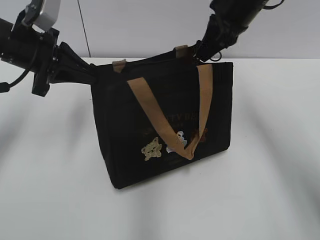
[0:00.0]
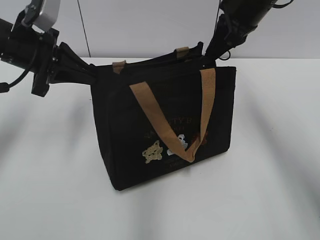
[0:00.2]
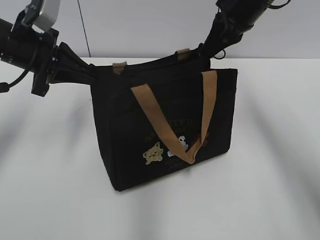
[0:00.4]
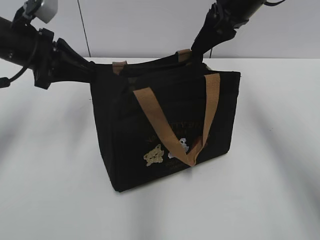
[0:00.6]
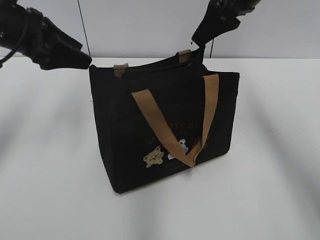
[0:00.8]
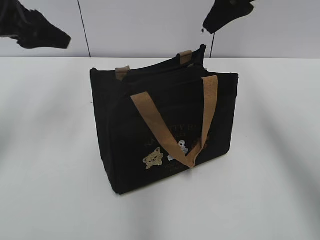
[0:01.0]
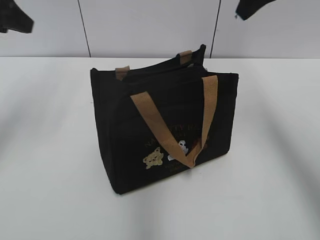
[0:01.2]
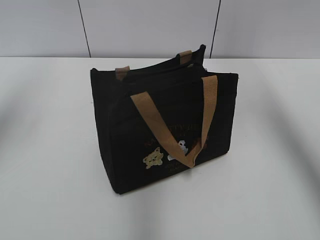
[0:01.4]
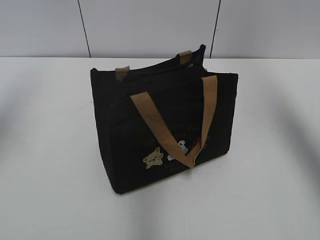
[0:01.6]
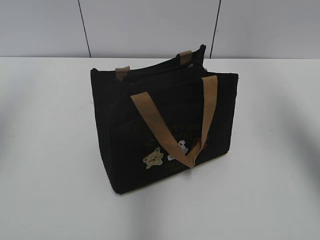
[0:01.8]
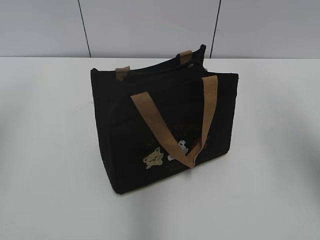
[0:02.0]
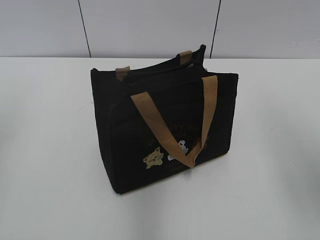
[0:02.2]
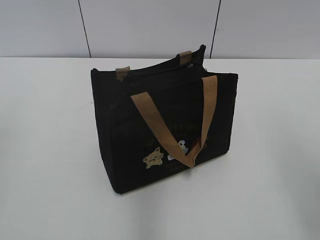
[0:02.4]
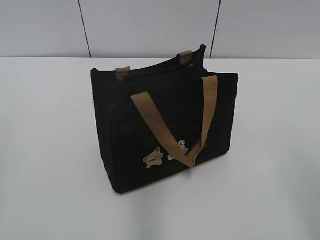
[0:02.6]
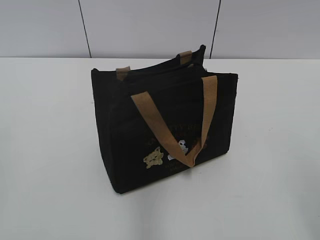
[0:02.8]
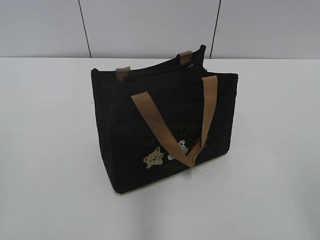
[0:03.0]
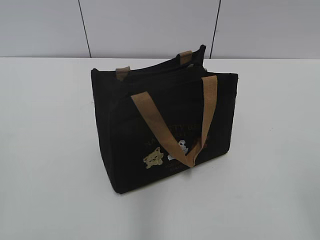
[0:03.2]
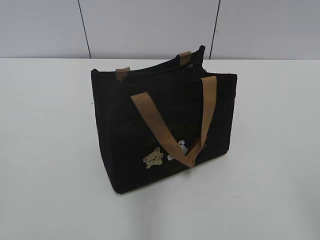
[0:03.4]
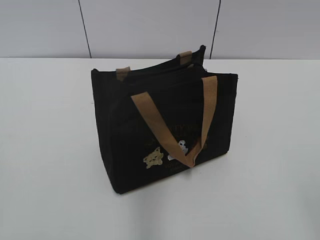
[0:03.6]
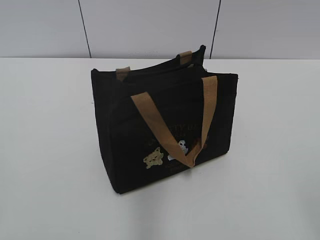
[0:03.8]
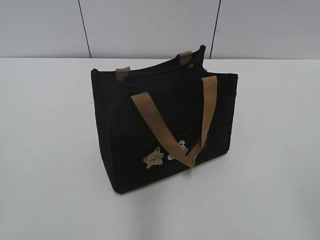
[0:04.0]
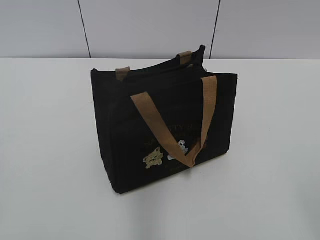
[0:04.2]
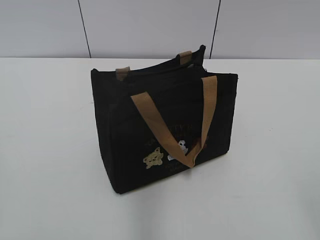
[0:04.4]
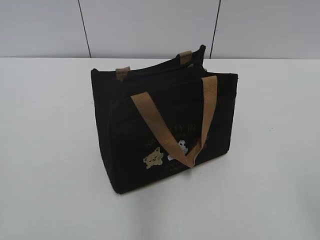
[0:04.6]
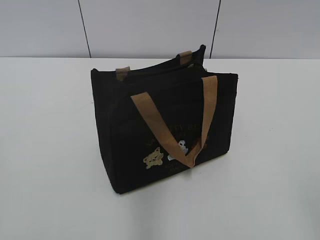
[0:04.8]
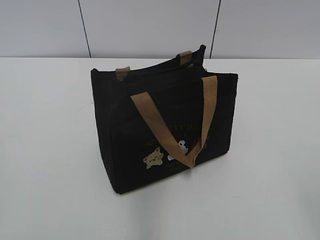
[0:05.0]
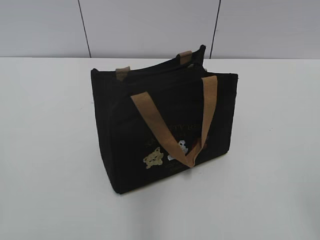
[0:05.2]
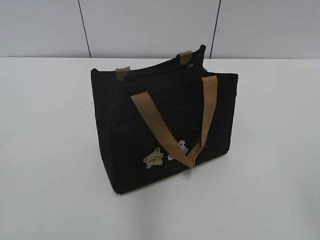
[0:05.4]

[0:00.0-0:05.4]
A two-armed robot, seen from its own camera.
0:00.0 to 0:01.4: The left gripper travels upward and to the left by some 15 cm, and opens. The right gripper is displaced upward and to the right by about 15 cm, and opens its fingers.
0:01.4 to 0:02.8: The left gripper is displaced backward by roughly 25 cm, while the right gripper moves backward and downward, roughly 35 cm.
0:04.0 to 0:05.4: Neither gripper changes place.

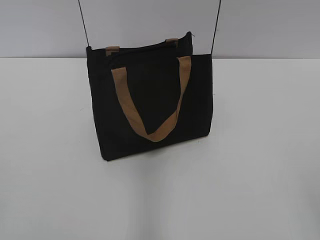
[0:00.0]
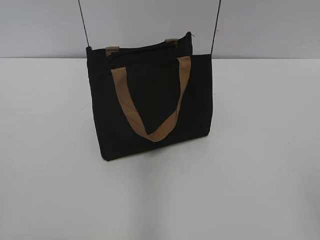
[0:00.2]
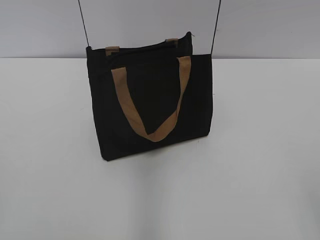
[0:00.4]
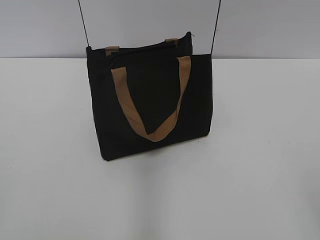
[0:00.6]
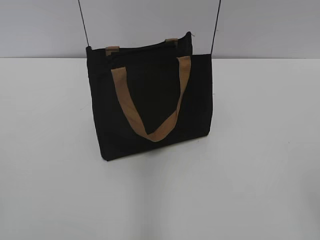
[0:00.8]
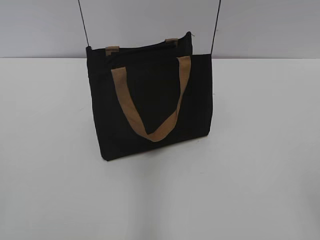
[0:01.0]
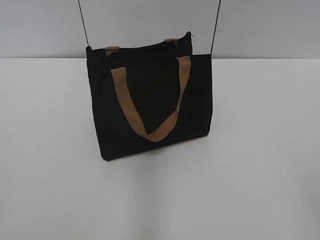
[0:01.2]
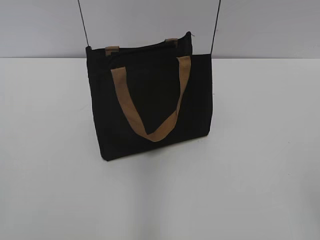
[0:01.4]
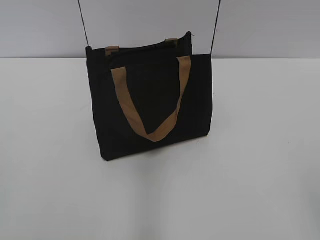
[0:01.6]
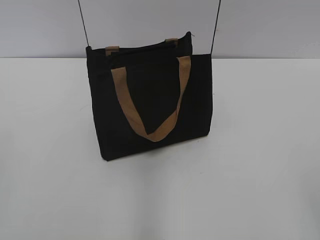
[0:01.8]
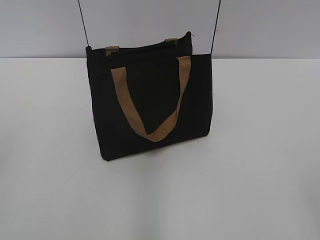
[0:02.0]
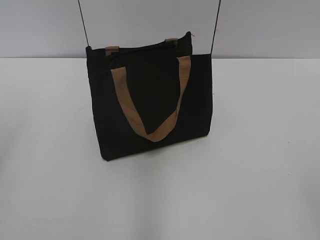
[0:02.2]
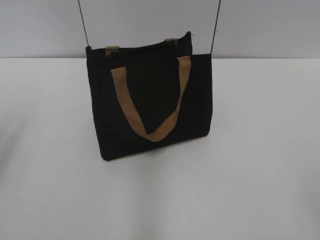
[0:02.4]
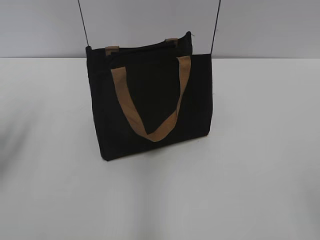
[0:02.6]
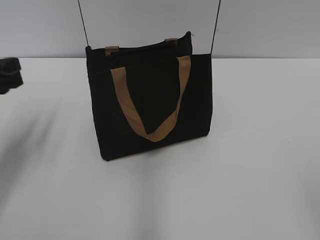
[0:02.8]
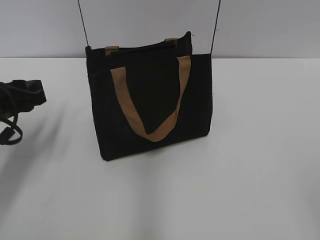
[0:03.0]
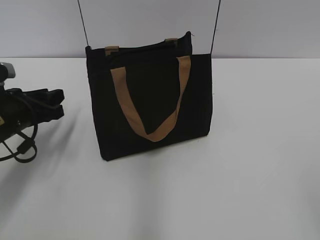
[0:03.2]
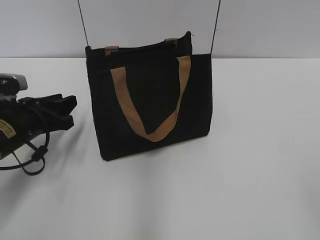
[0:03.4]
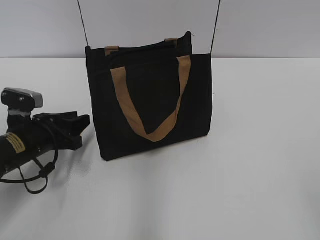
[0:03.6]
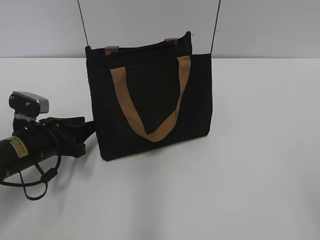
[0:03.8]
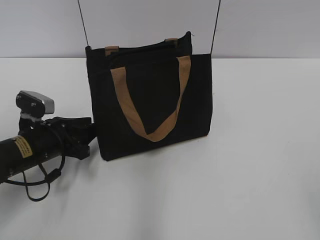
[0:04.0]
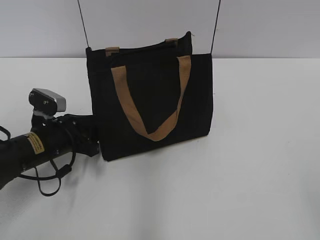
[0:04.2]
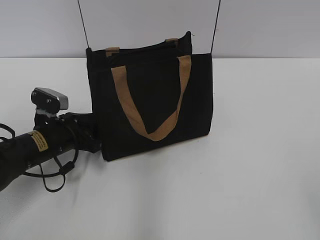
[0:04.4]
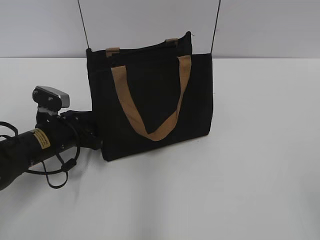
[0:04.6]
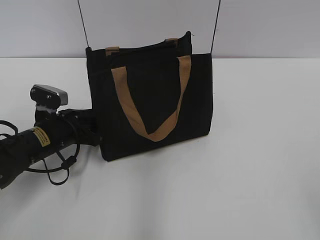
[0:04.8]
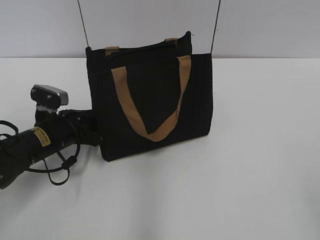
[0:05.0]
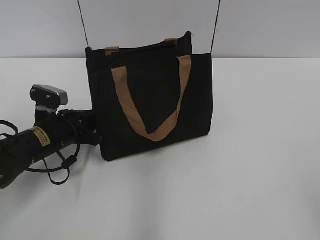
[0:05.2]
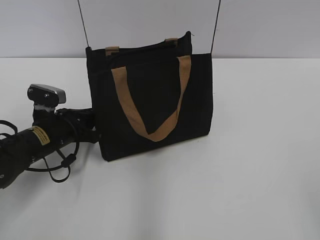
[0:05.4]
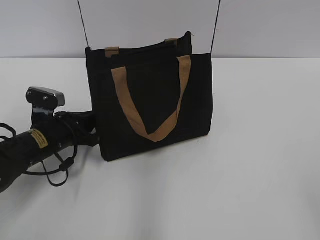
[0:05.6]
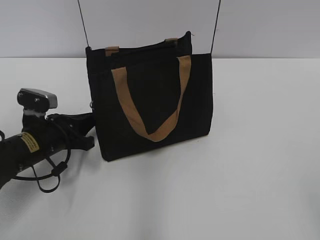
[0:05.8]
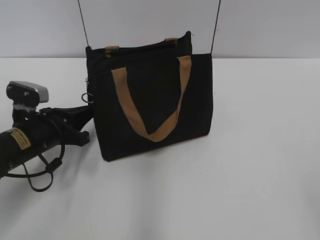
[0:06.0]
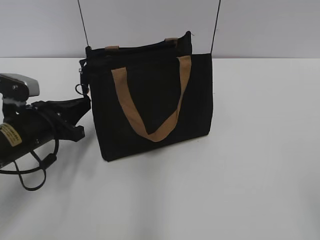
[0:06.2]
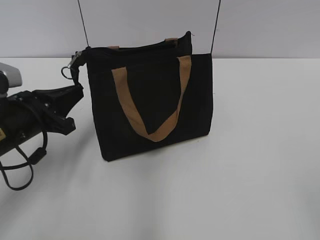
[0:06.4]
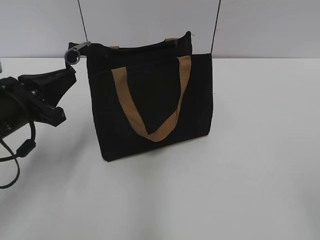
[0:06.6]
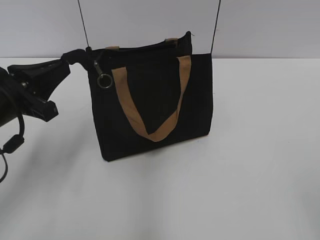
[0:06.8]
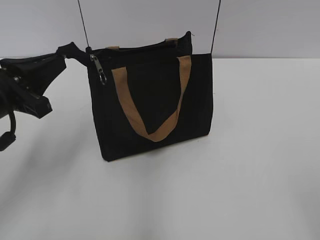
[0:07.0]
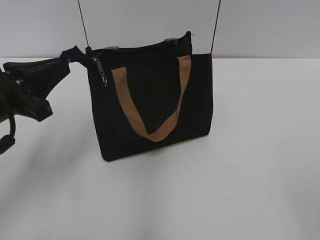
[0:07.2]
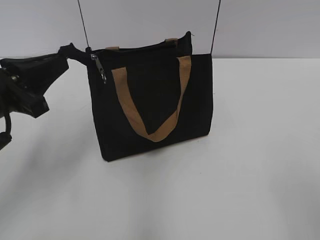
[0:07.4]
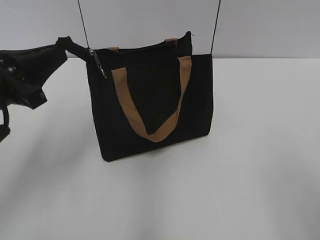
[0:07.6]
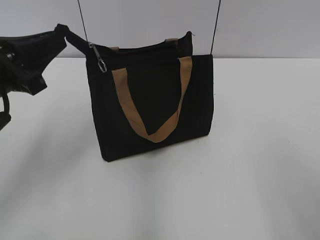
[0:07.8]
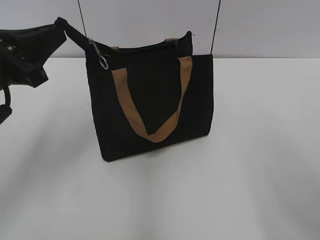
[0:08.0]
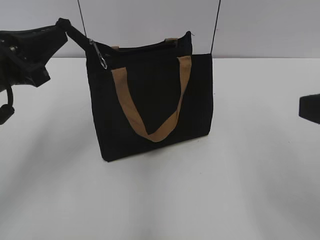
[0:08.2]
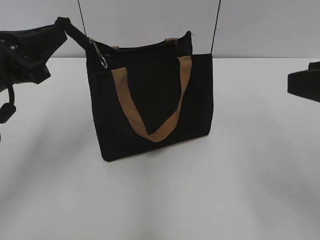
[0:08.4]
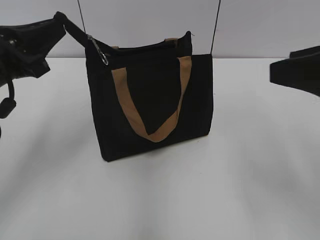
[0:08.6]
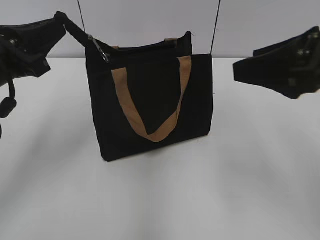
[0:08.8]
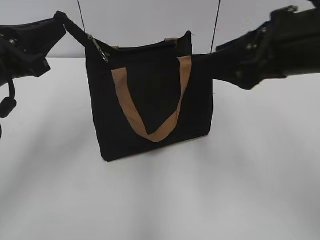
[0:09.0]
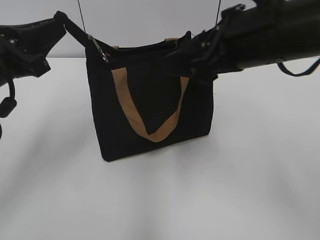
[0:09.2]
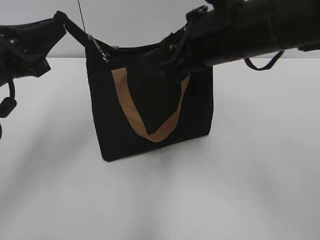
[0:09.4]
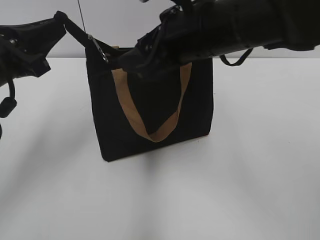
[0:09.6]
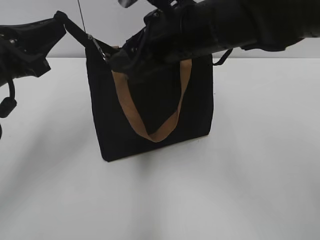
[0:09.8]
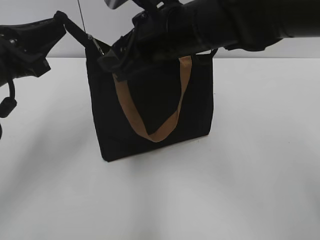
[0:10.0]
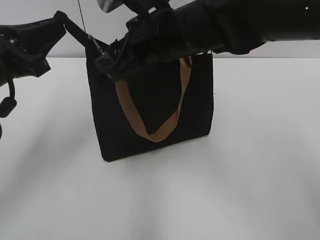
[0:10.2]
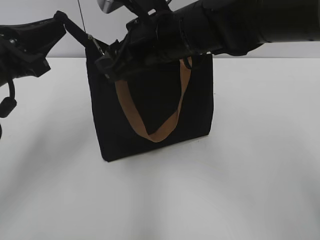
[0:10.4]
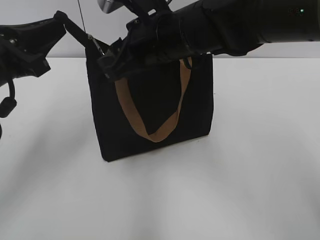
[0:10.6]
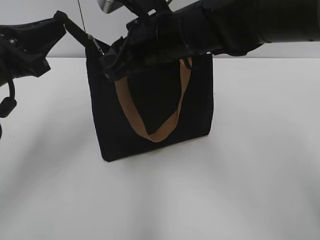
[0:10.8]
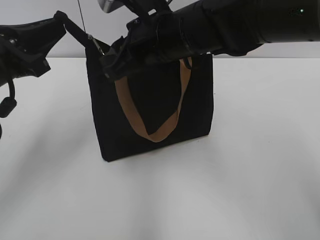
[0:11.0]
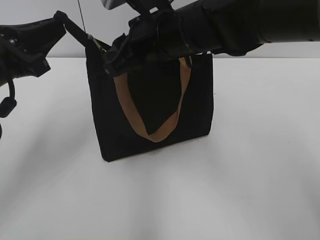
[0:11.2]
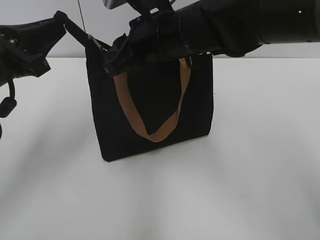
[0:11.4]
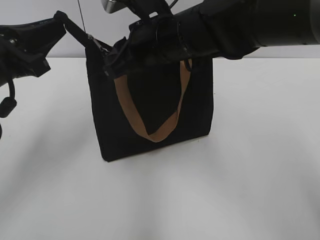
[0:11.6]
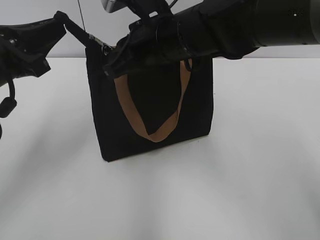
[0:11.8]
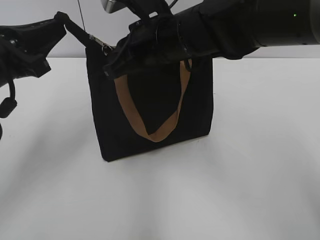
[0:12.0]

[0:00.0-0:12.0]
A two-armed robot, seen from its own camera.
0:01.6 to 0:03.0: The left gripper is displaced forward and downward by approximately 30 cm.
0:03.0 to 0:04.4: The left gripper is displaced downward and to the right by approximately 10 cm.
0:04.4 to 0:06.0: The left gripper closes its fingers.
0:06.0 to 0:07.6: The left gripper is displaced upward and backward by about 15 cm.
0:07.6 to 0:09.0: The right gripper moves forward and to the left, approximately 20 cm.
0:09.0 to 0:10.4: The right gripper travels to the left and forward by some 20 cm.
0:10.4 to 0:12.0: The right gripper closes its fingers.

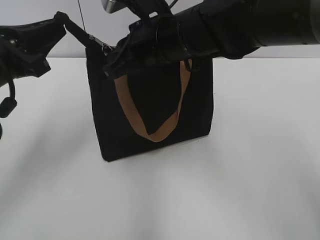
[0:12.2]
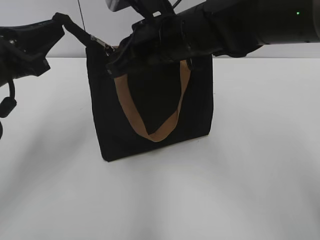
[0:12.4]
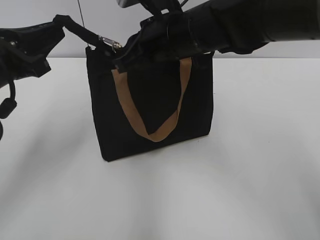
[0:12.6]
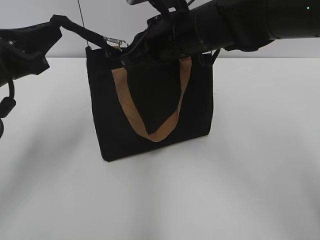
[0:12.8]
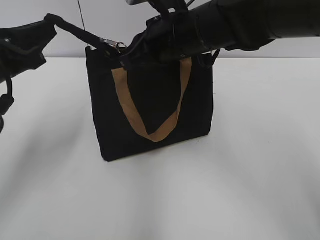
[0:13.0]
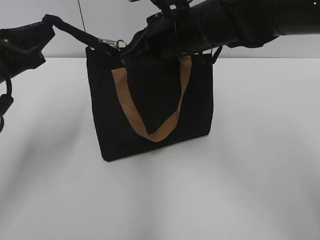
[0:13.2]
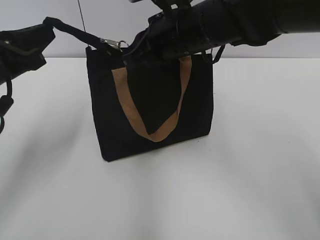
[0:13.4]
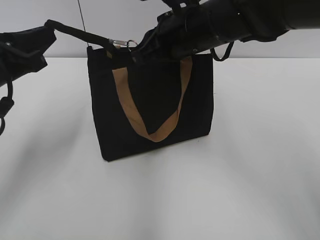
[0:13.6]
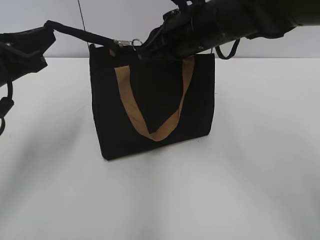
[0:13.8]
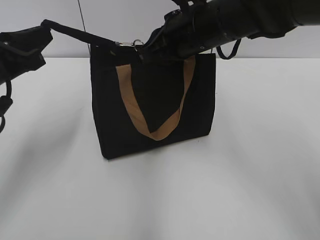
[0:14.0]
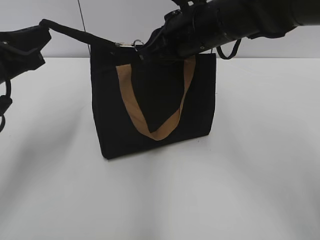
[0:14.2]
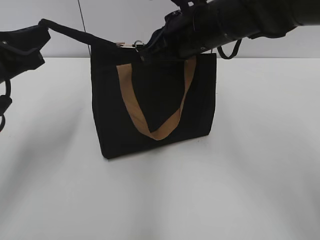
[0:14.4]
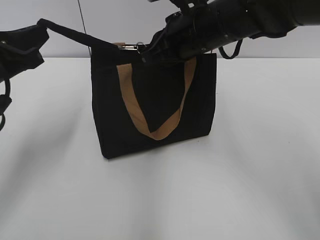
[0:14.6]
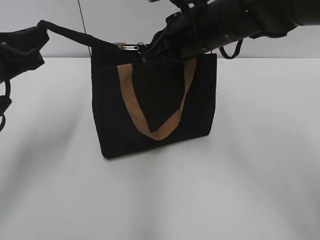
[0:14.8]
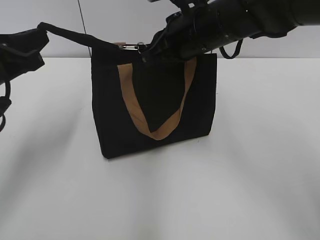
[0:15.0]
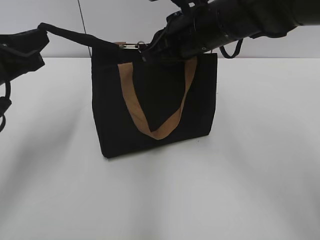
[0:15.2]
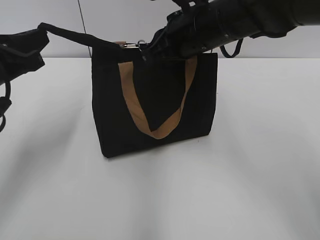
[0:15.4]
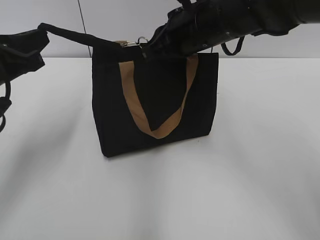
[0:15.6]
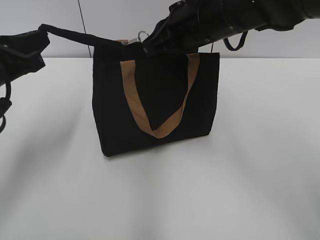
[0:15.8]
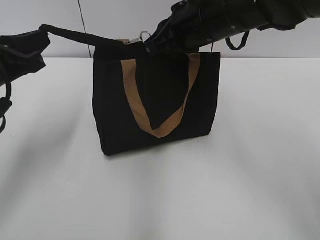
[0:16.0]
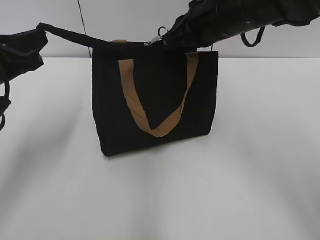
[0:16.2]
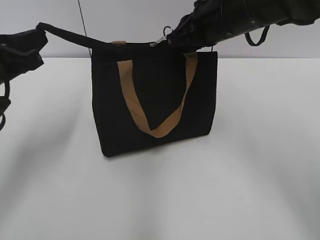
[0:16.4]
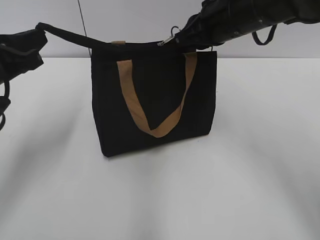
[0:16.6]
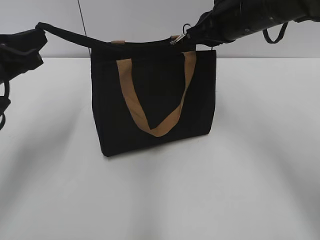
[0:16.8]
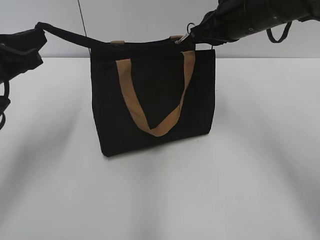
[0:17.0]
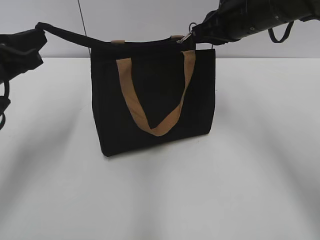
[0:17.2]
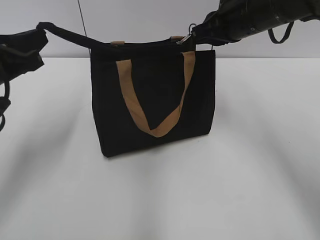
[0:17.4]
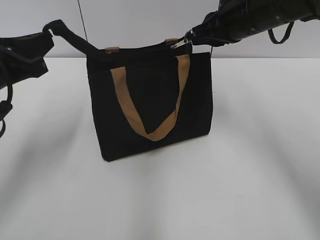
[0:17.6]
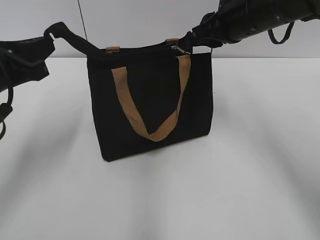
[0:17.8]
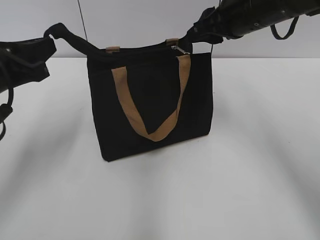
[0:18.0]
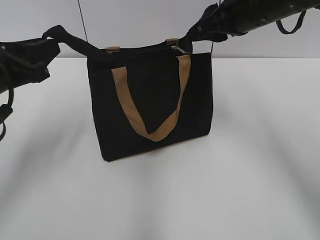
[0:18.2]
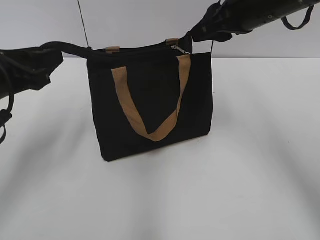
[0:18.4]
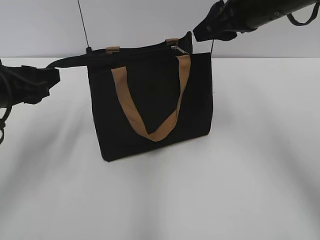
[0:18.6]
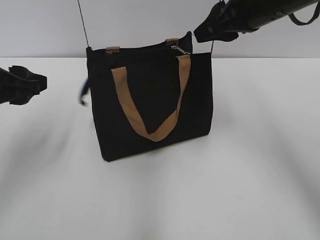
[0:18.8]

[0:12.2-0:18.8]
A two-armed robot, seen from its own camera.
Step, 0:12.2 to 0:18.0: Zip up the bag with your right hand.
Step, 0:18.2 to 0:18.8: Grab the zipper with your left hand.
0:12.2 to 0:13.8: The right gripper shifts by roughly 5 cm.
0:13.8 to 0:15.4: The two grippers keep their place.
0:15.4 to 0:17.2: The right gripper moves to the right, roughly 10 cm.
0:17.2 to 0:18.8: The right gripper changes place by about 5 cm, and opens, while the left gripper opens its fingers.
